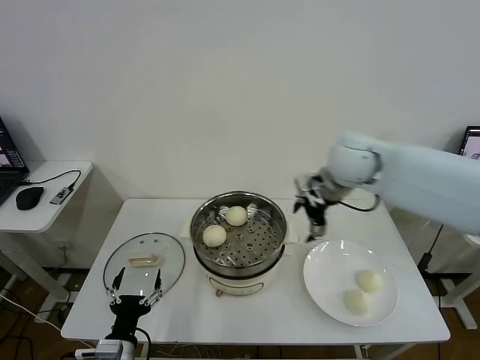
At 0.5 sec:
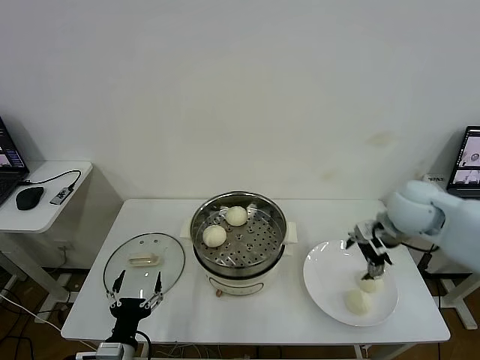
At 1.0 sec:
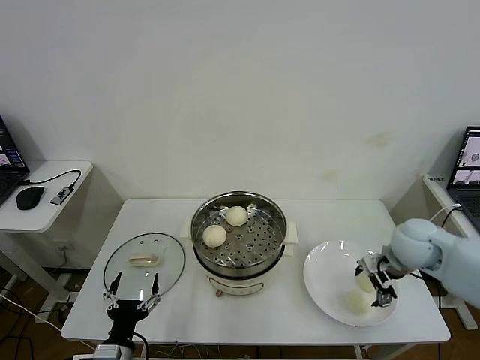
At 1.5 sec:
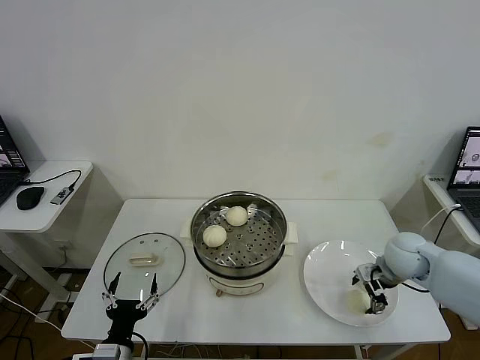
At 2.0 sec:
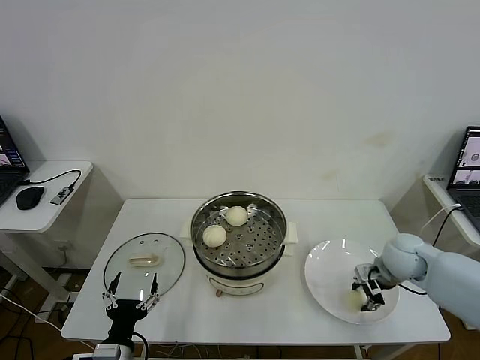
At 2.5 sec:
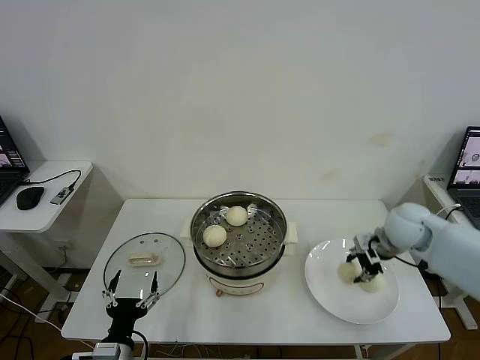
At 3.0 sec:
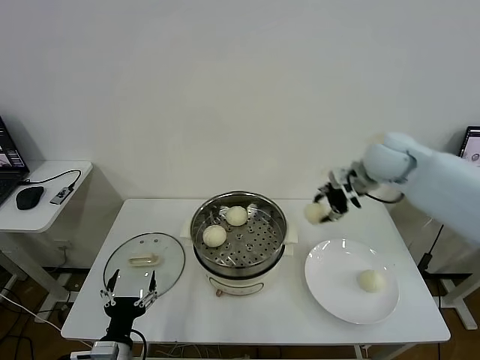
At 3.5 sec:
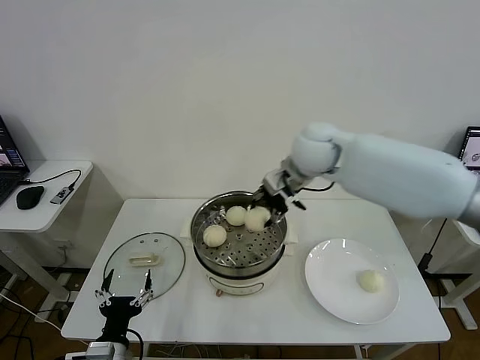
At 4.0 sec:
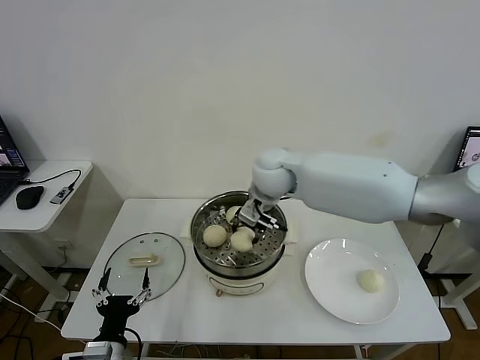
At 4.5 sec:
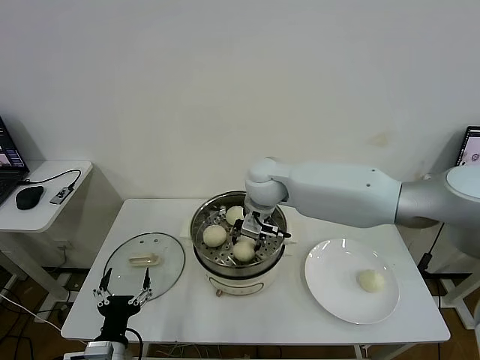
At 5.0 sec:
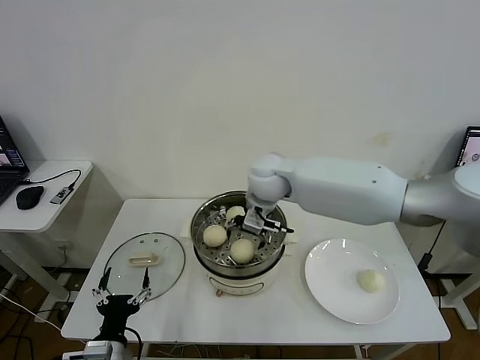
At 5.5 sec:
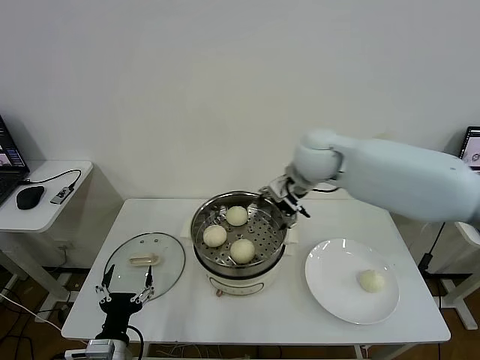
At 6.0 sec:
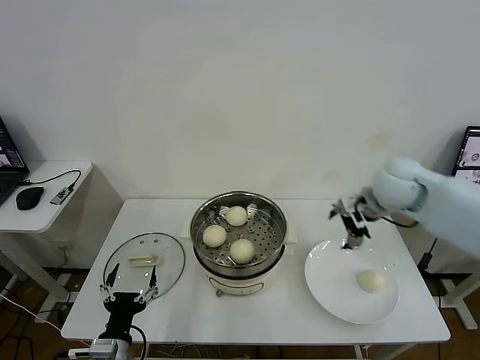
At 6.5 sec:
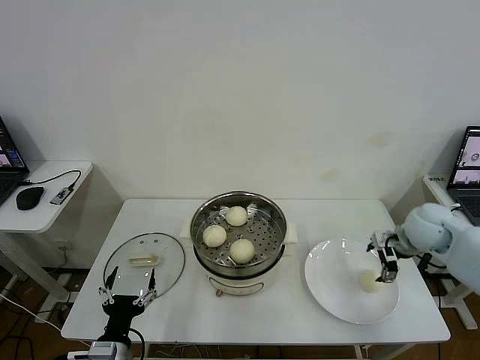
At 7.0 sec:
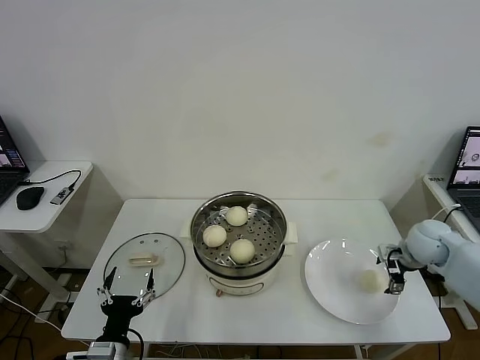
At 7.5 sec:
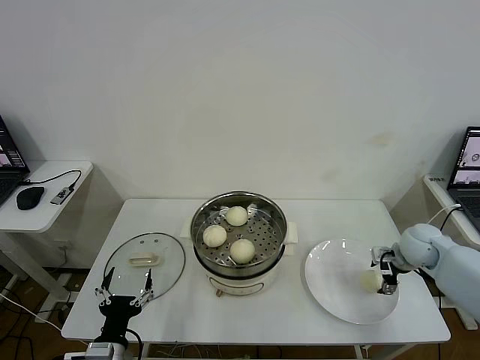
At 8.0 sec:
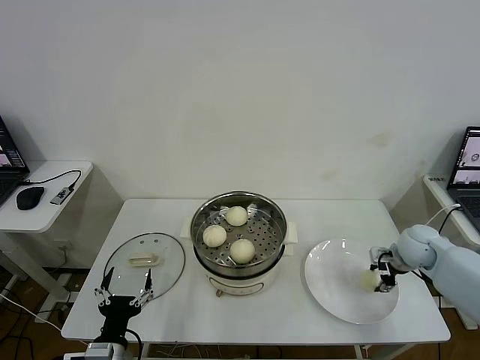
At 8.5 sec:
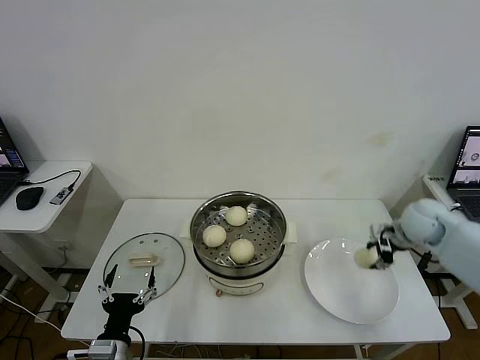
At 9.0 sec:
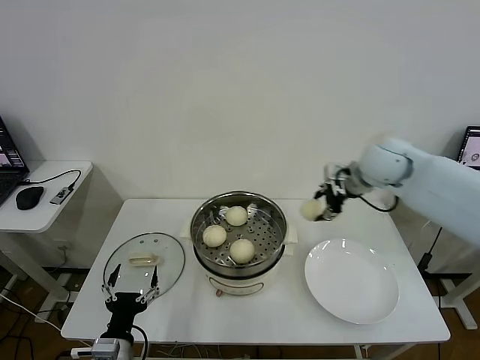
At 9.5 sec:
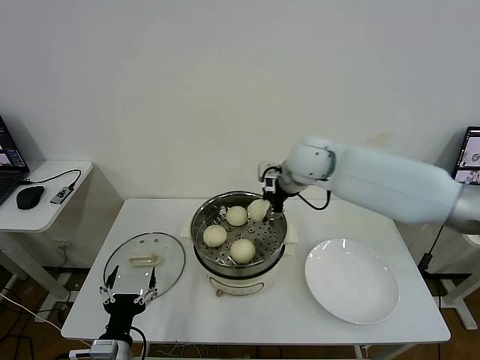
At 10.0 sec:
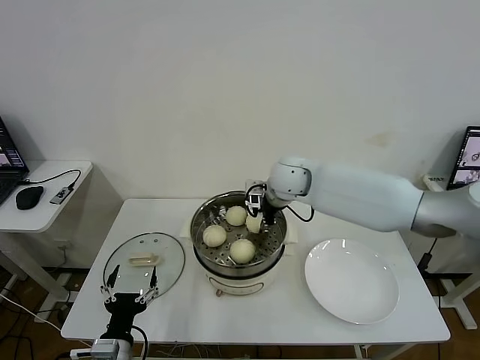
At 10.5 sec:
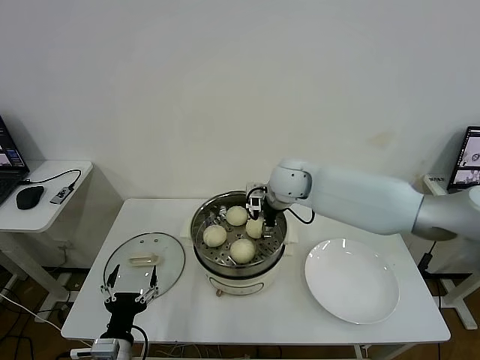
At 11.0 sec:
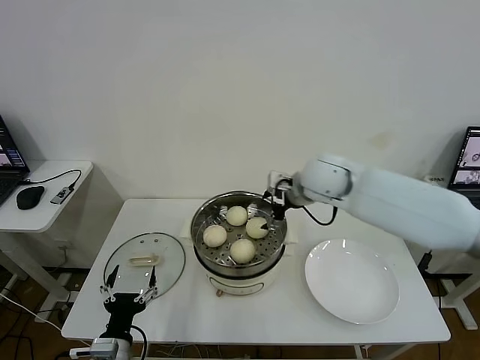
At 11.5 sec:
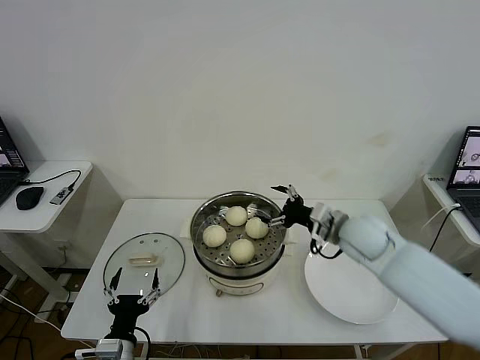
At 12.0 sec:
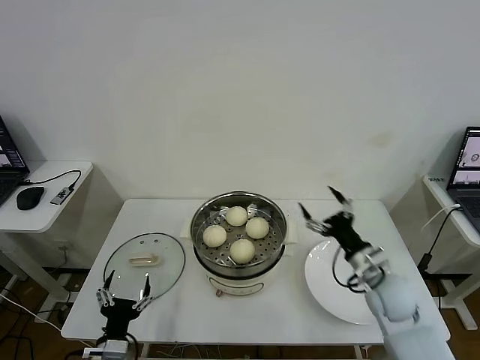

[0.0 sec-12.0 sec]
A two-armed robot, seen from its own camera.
Task of the whole recording: take steamed baozi put them in steamer then cover it.
Step, 0.0 sec to 2.0 sec: Grasp the baozi in the plate with right gripper.
Step, 2.5 sec to 5.0 sec: Place the baozi on the steamer with right gripper.
Step, 5.5 sec to 8.0 sec: Grasp the baozi in the plate with right gripper.
Step, 8.5 sec to 10.5 sec: Place the baozi on the steamer with right gripper.
0.0 sec to 2.0 sec: The right gripper shifts approximately 25 cm downward and to the right, and closes its fingers.
2.0 sec to 4.0 sec: The right gripper heads to the left and upward, covering roughly 35 cm.
4.0 sec to 6.0 sec: The right gripper moves to the right, roughly 25 cm, and opens up.
6.0 sec to 8.0 sec: The right gripper goes approximately 20 cm downward and to the right, and closes.
8.0 sec to 10.0 sec: The right gripper goes some 35 cm to the left and upward.
10.0 sec to 12.0 sec: The right gripper travels to the right, backward and downward by roughly 30 cm, and opens.

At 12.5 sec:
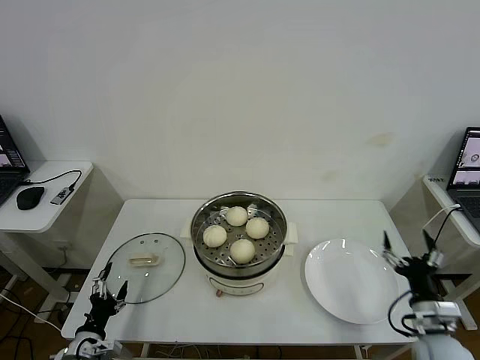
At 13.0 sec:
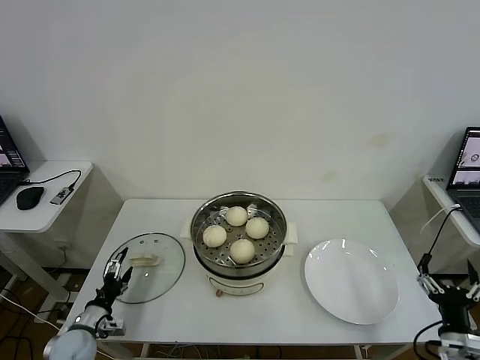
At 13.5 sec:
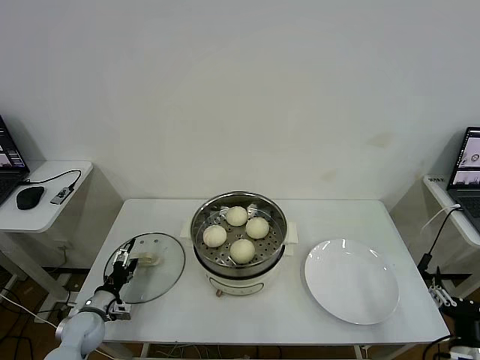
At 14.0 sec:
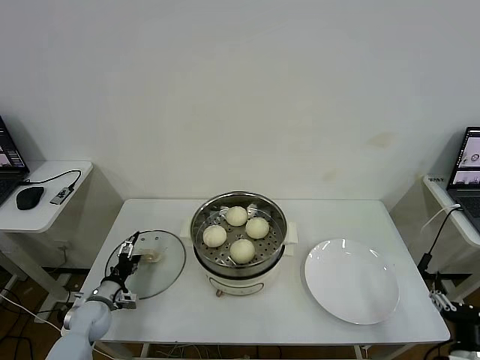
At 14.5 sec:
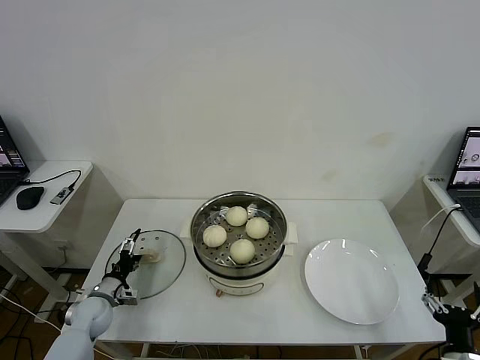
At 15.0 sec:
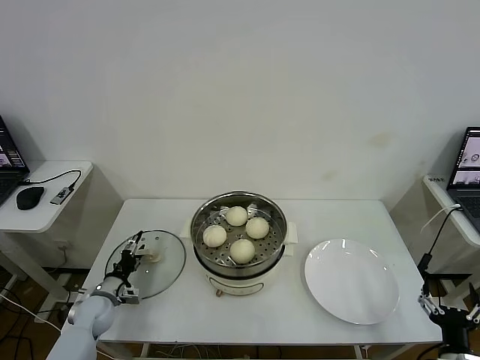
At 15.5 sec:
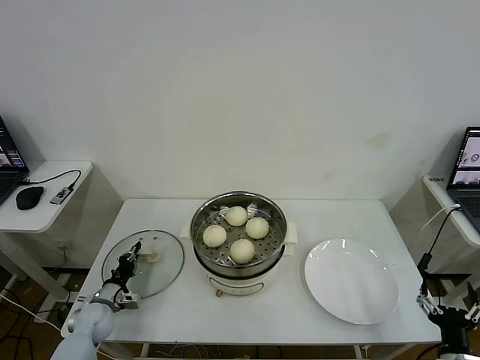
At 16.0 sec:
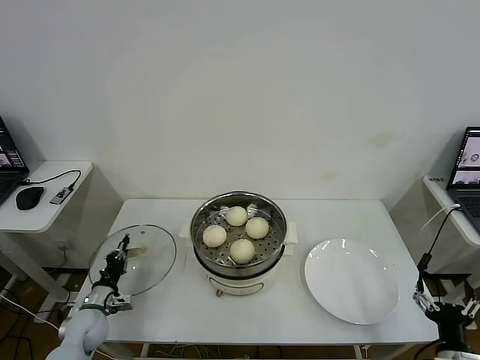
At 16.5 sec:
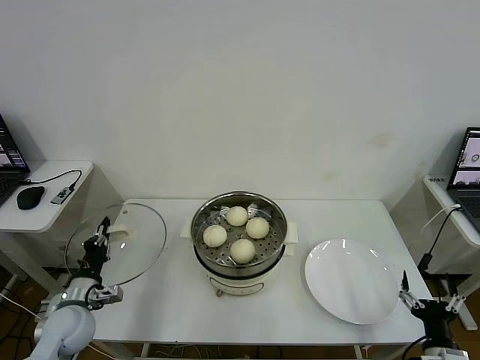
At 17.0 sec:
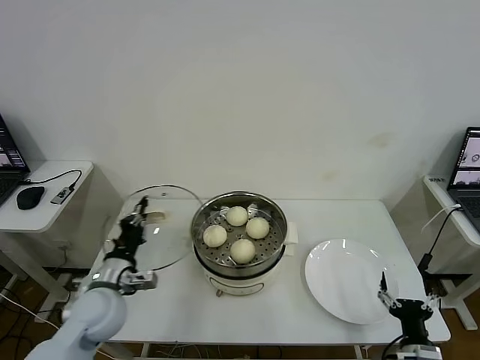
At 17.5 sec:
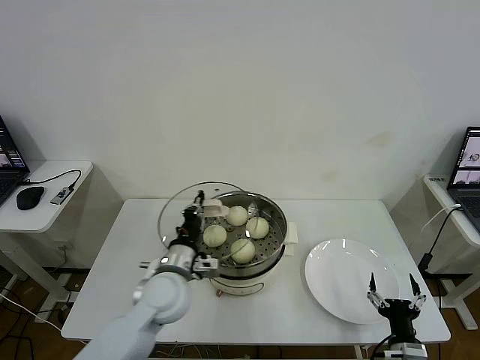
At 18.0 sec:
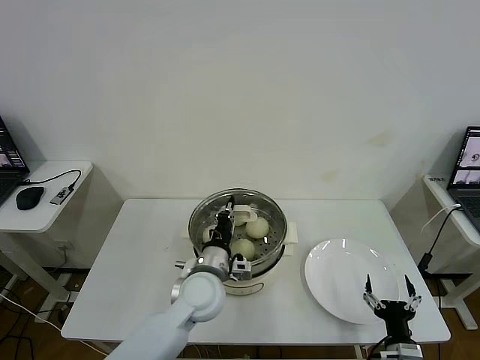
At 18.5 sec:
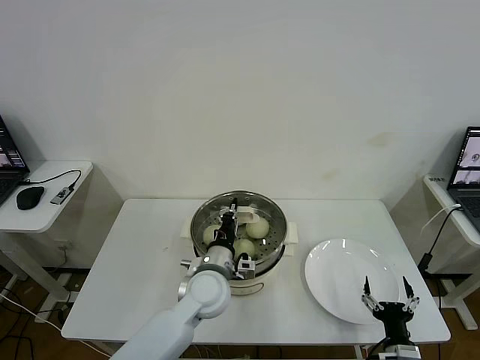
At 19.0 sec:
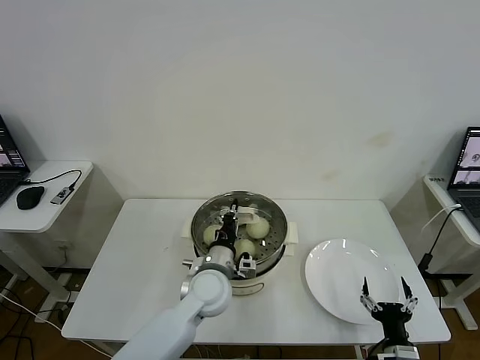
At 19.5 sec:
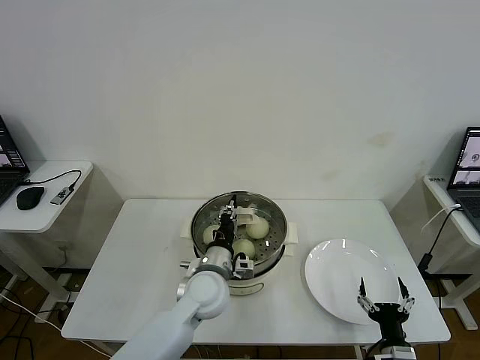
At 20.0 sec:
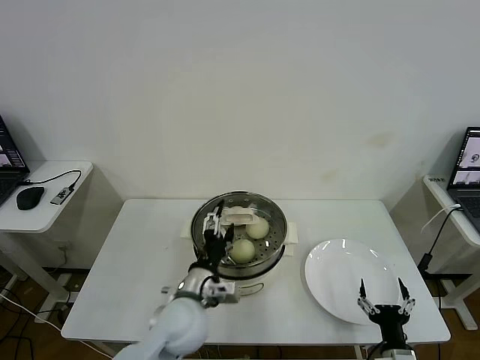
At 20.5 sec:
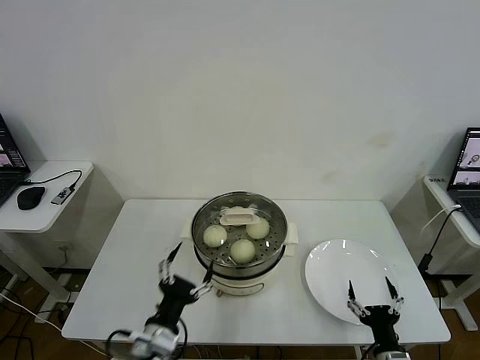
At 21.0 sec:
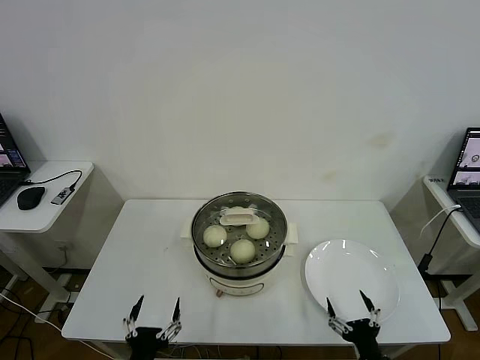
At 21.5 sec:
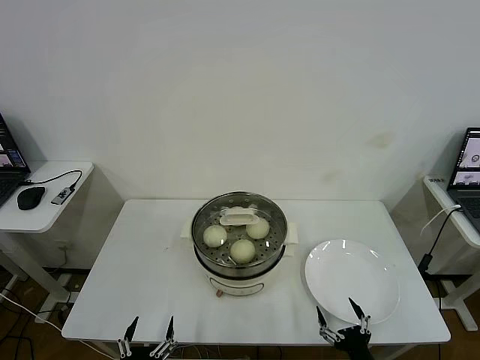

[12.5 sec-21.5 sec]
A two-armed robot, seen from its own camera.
Task of the whole recording: take steamed baozi put them in steamer then cover it.
Step, 12.5 sec to 15.5 sec: Grasp the pot lid with left gripper.
Step, 16.0 sec to 20.0 sec: Place the pot lid on the steamer with left gripper.
12.5 sec to 14.5 sec: The left gripper travels forward by about 15 cm; the right gripper shifts roughly 10 cm backward.
14.5 sec to 17.0 sec: The right gripper shifts by approximately 5 cm. Meanwhile the left gripper travels upward and to the right by some 20 cm, and closes its fingers.
17.0 sec to 19.5 sec: The left gripper shifts about 20 cm to the right.
19.5 sec to 21.5 sec: The left gripper shifts approximately 30 cm backward and to the left, and opens up. Meanwhile the right gripper changes place by roughly 5 cm.

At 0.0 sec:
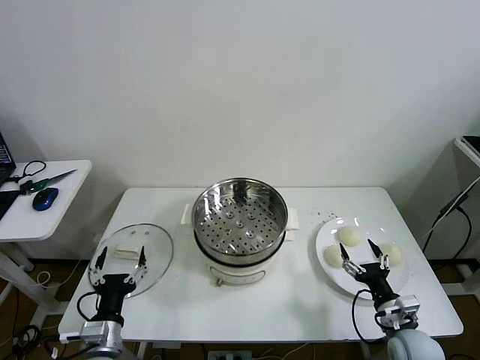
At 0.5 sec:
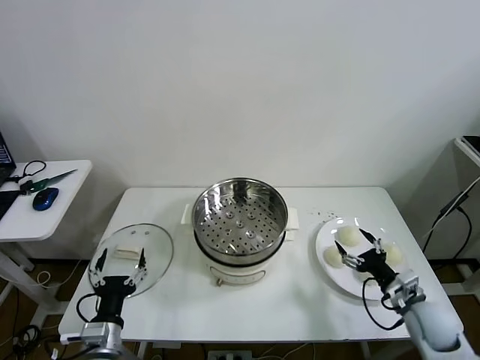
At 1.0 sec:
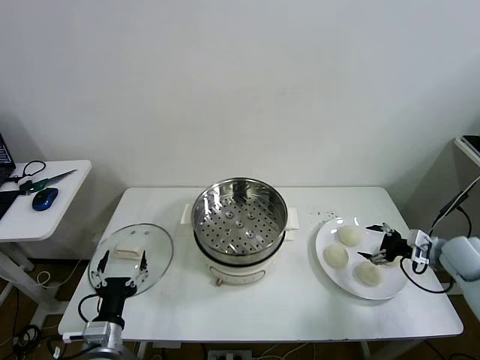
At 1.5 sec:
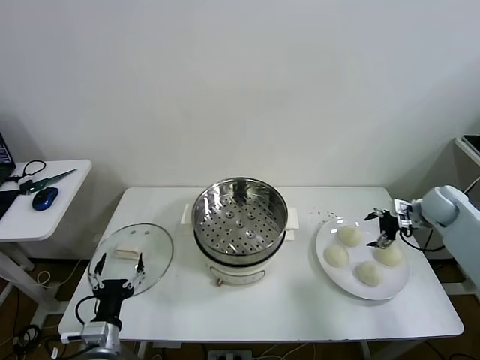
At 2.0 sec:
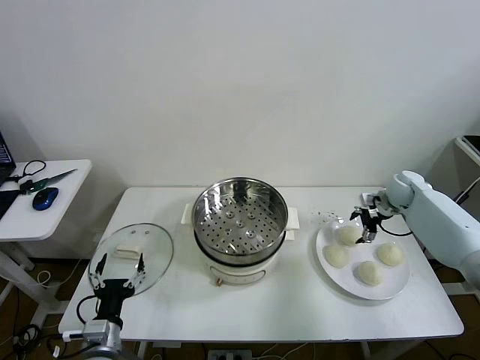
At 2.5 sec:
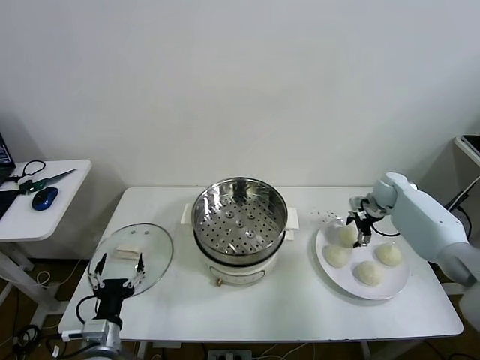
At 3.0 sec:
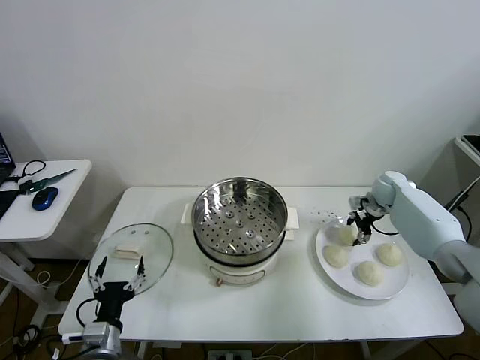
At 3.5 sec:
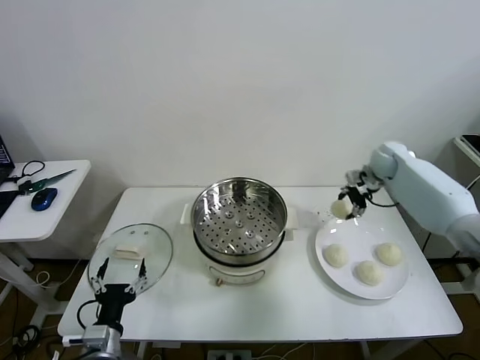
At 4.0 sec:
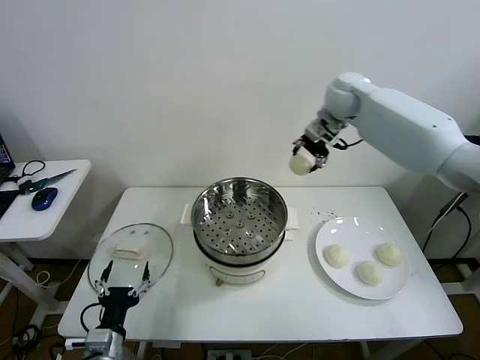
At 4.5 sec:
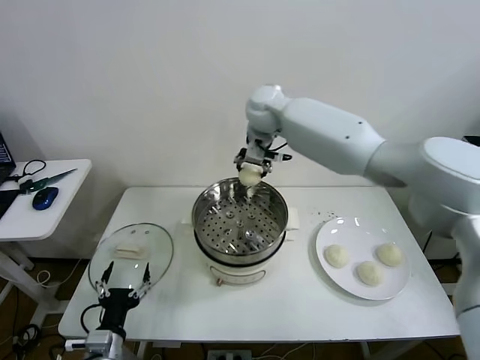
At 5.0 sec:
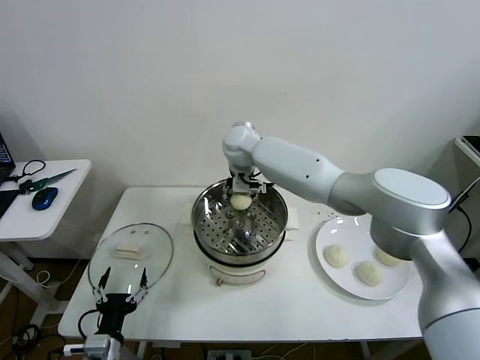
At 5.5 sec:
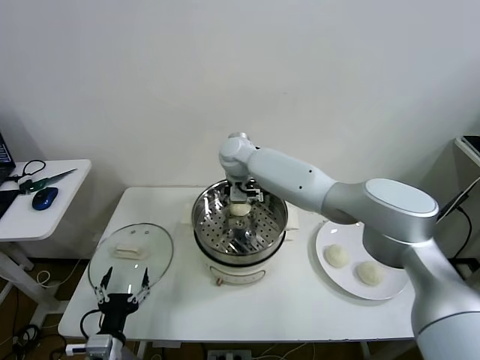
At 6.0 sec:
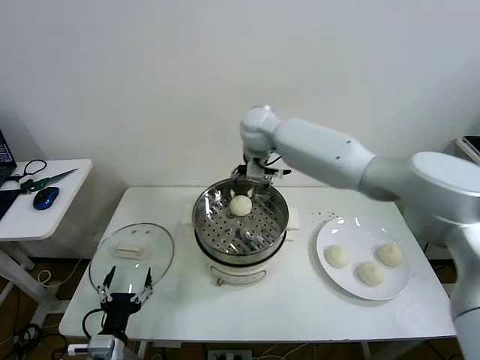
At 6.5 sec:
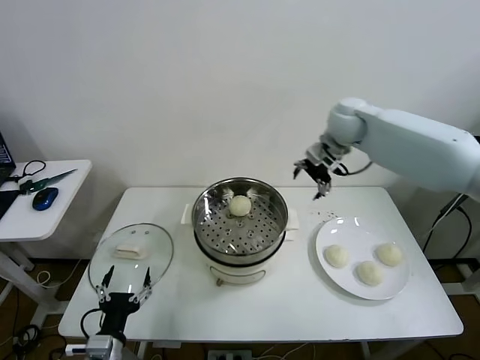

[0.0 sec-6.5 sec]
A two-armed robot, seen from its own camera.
Task of the whole recording: take steamed baozi put them in steamer then cover it.
Step, 0.0 sec to 2.5 sec: Grasp the baozi in the plate with right gripper.
Step, 3.0 sec to 5.5 sec: Place the baozi on the steamer with right gripper.
2.0 sec to 4.5 sec: The right gripper is displaced to the left and upward by approximately 50 cm, and closes.
4.5 sec to 6.5 sec: The right gripper moves to the right, roughly 25 cm, and opens.
